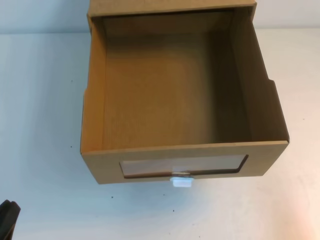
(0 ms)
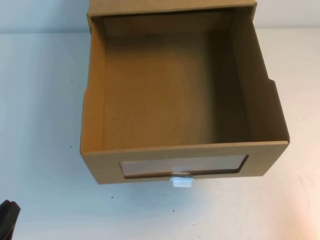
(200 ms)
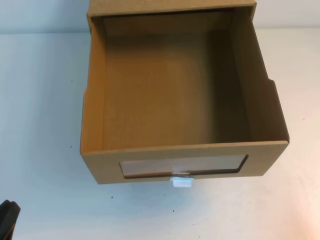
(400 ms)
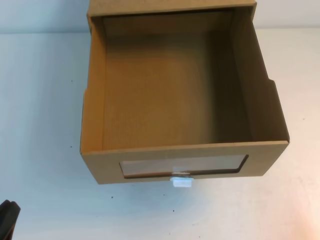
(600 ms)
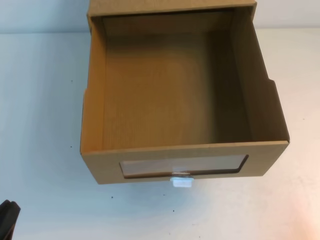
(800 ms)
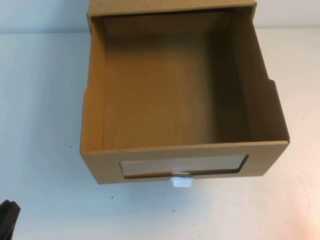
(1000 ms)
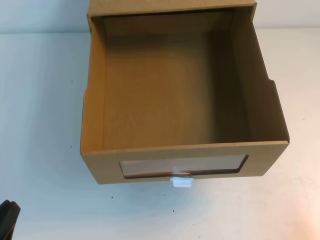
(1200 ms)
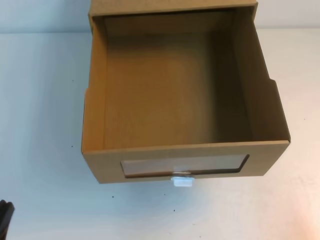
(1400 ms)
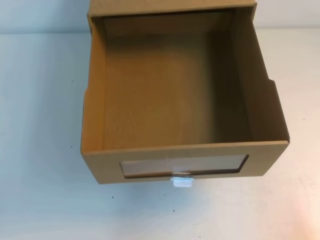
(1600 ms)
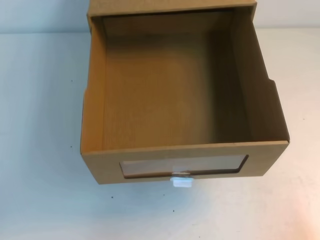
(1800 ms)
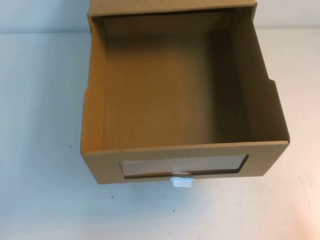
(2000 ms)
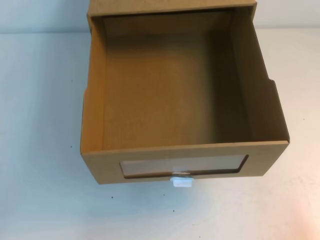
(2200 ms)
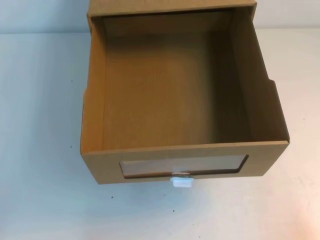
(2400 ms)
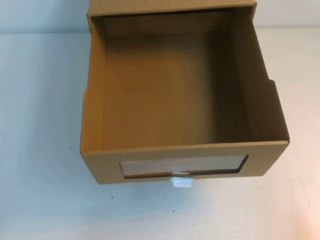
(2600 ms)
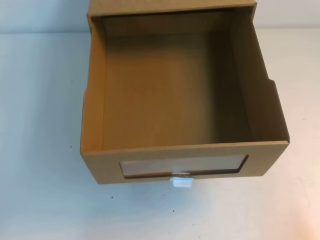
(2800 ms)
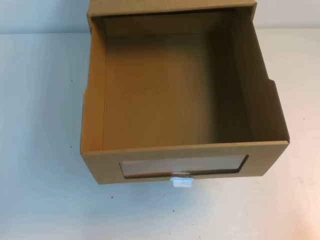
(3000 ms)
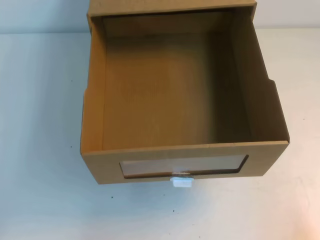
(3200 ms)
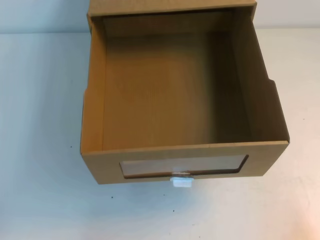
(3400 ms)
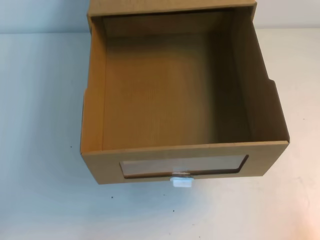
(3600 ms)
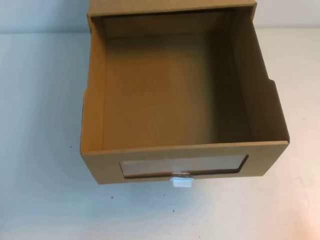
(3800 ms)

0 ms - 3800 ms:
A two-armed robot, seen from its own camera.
Task of the whole recording: open the shoebox on the table.
Step, 0 ms - 3800 ms: Open the shoe box.
2600 ms - 3800 ms: The two grippers keep their place.
